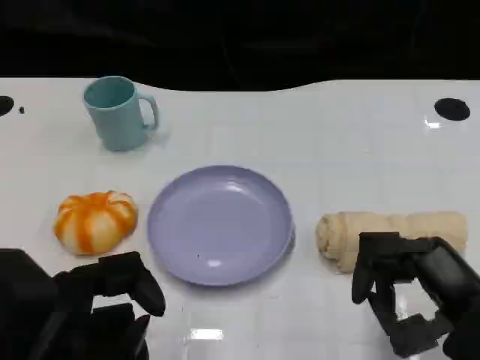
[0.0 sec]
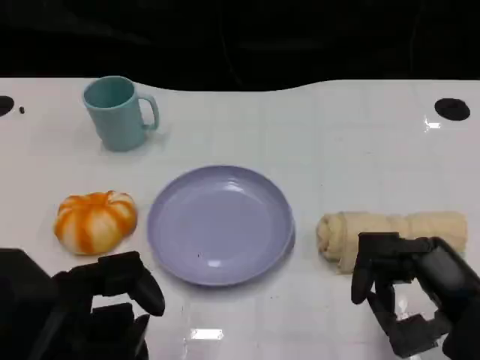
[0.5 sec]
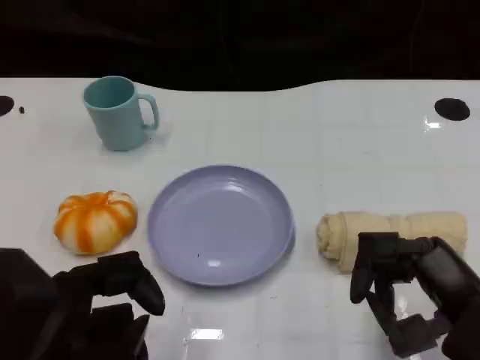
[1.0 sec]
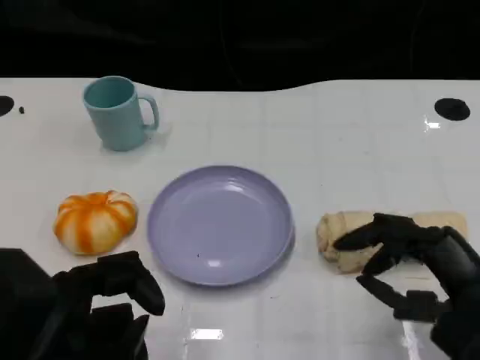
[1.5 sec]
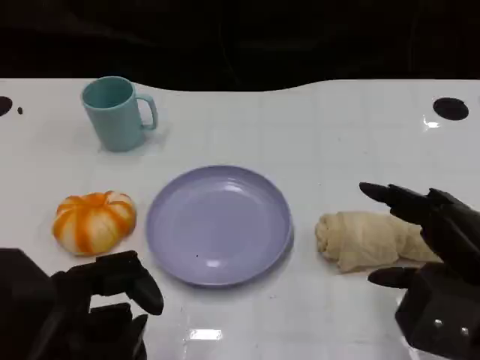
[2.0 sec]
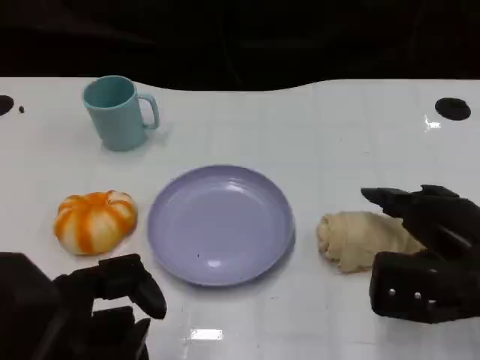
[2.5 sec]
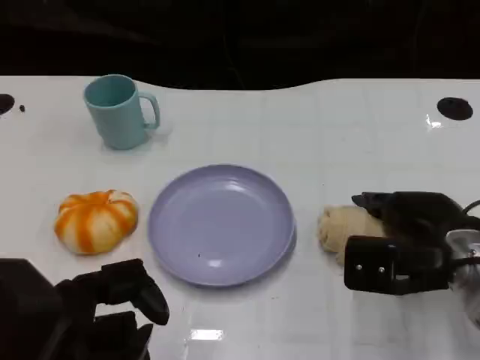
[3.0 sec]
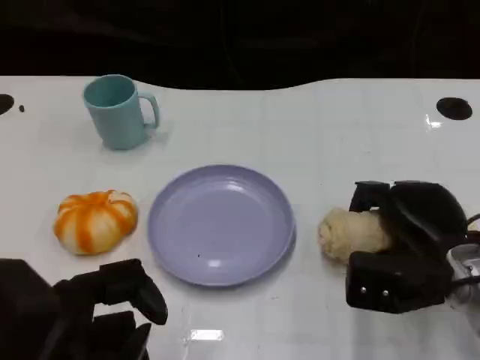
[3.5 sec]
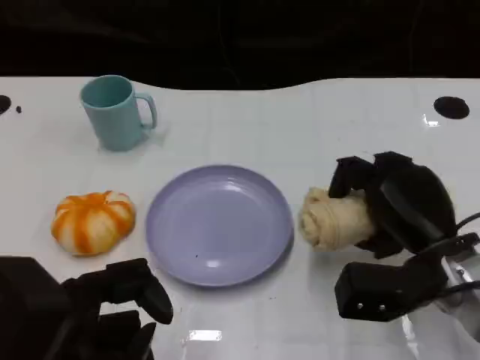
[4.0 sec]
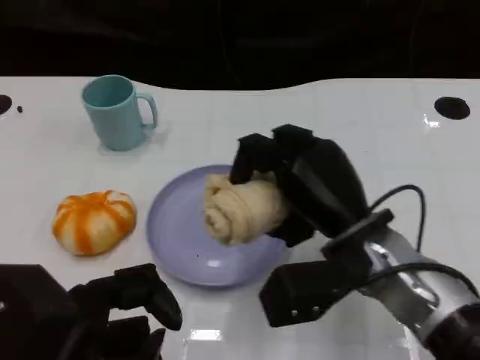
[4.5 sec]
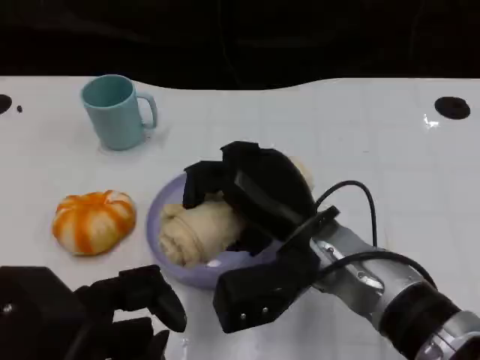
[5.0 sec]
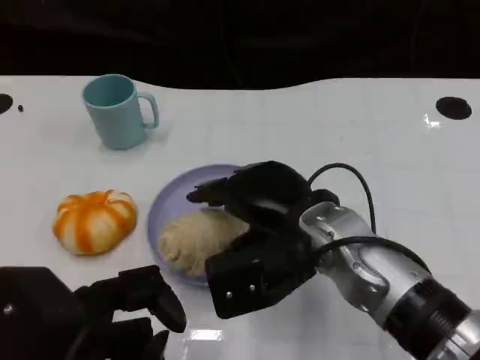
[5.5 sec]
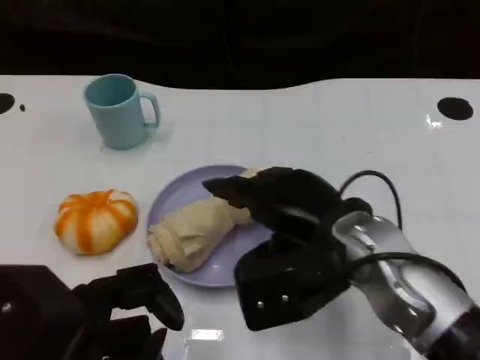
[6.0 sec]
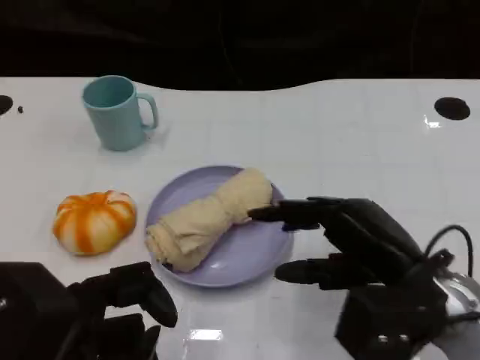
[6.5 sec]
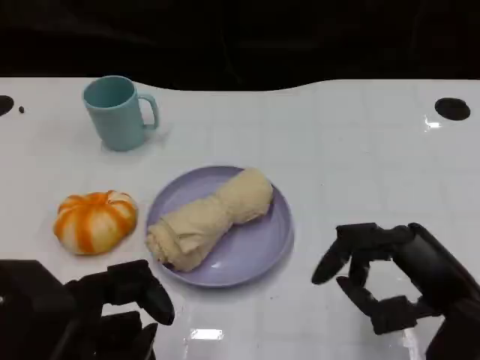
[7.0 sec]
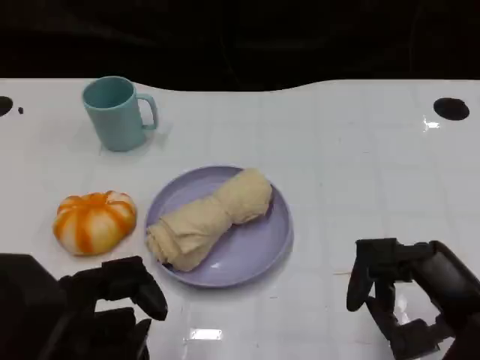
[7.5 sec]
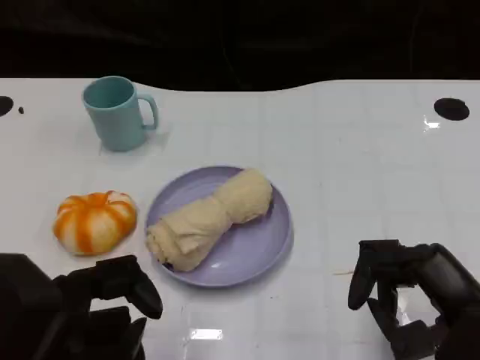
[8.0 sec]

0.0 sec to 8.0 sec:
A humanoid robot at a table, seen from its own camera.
Task of the whole recording: Grasp the towel on the left side of the plate with the left hand and place it into the plate.
2.0 sec to 4.0 sec: The right hand shifts roughly 10 cm forward and downward.
4.0 sec to 6.0 sec: The right hand moves to the left and upward, roughly 10 cm.
6.0 sec to 8.0 sec: The right hand moves to the right and backward, some 15 cm.

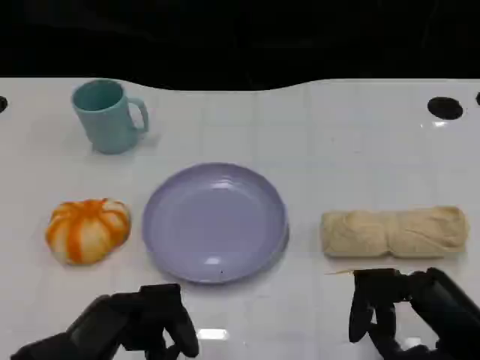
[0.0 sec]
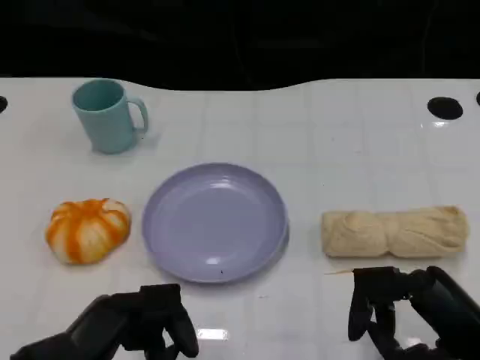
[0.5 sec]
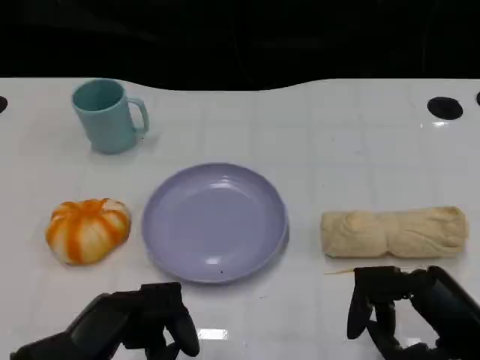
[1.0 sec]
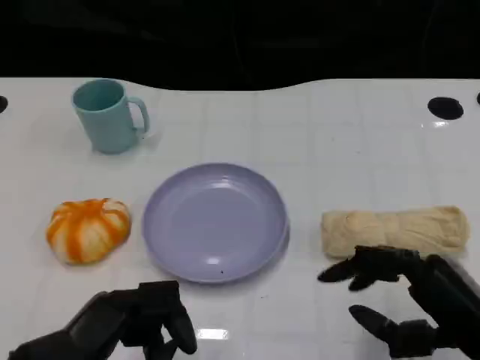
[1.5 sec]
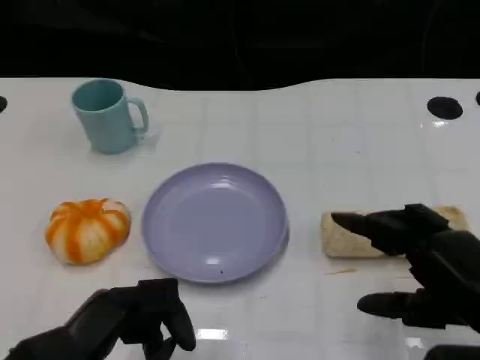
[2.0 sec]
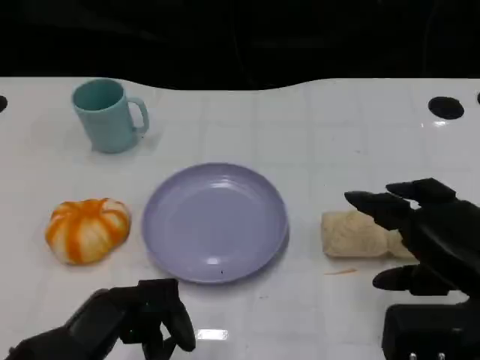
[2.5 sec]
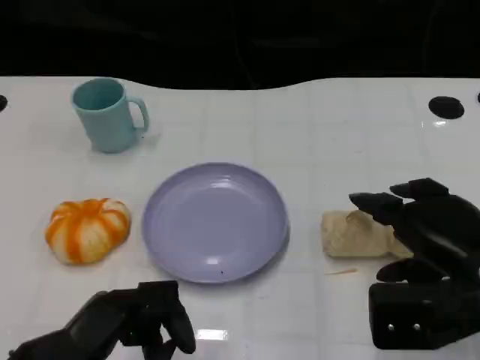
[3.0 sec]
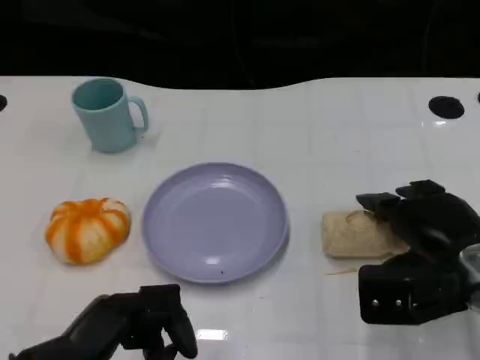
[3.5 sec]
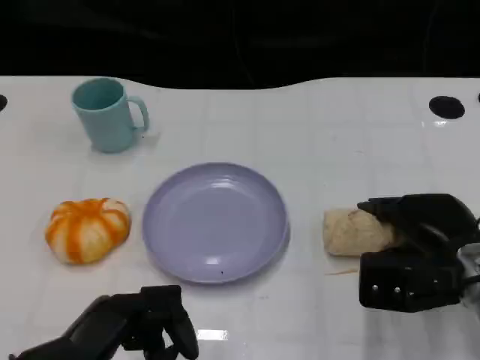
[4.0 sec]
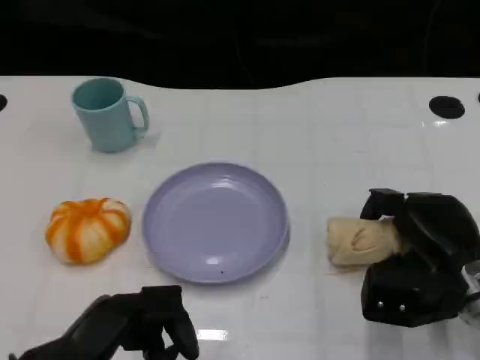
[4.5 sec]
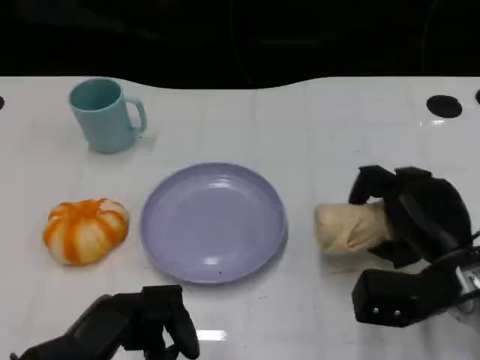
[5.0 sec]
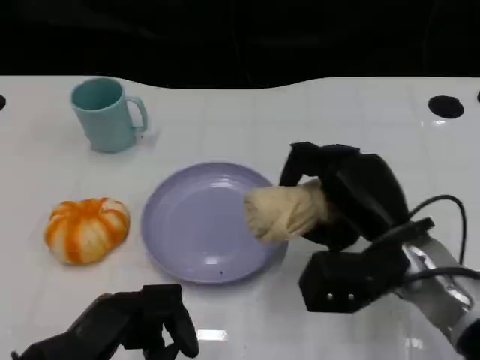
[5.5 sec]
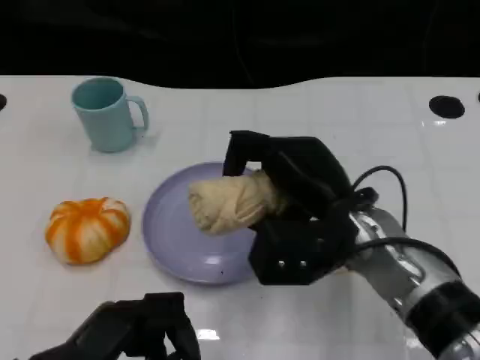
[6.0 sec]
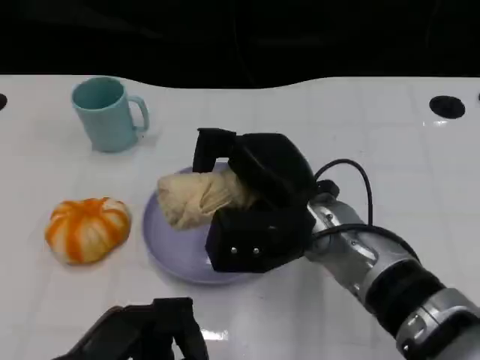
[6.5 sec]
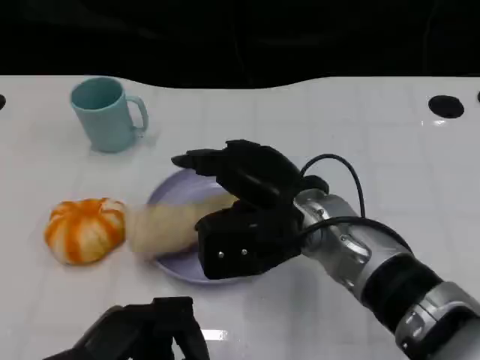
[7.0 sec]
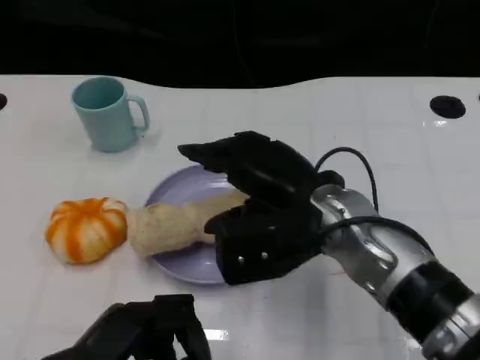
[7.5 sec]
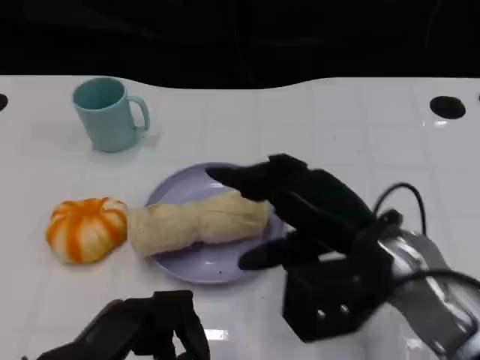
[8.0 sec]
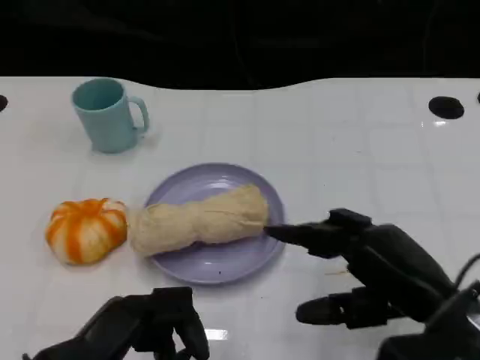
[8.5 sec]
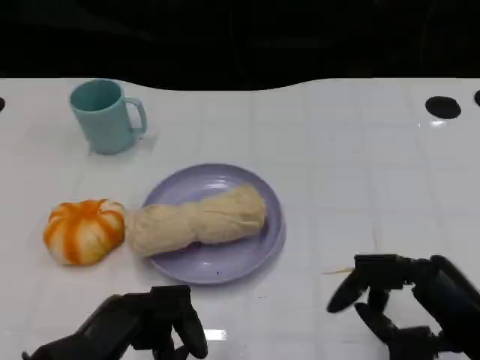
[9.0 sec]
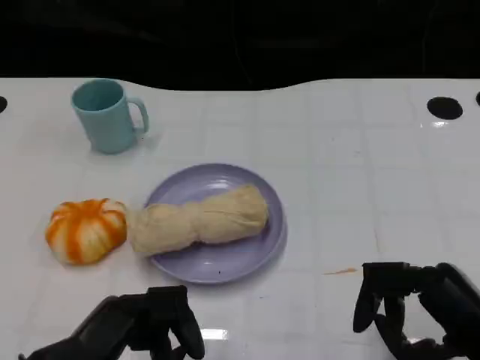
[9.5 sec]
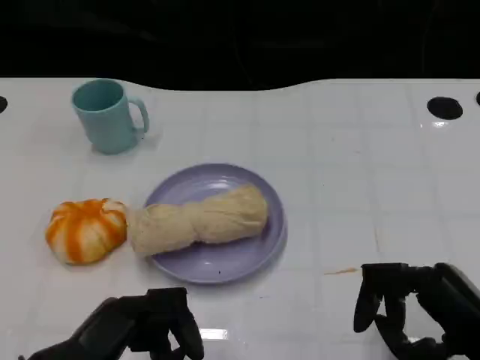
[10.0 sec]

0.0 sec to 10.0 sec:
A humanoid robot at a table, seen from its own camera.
Task of the whole recording: Grasp the towel on the left side of the plate with the left hand and place it into the plate.
2.0 sec to 4.0 sec: The right hand travels forward and downward by roughly 10 cm.
4.0 sec to 6.0 sec: The right hand shifts about 15 cm to the left and upward.
6.0 sec to 8.0 sec: The right hand ends up roughly 5 cm from where it was.
8.0 sec to 10.0 sec: The right hand travels to the right and backward by roughly 15 cm.
